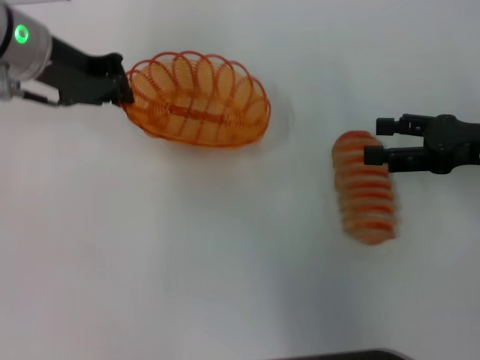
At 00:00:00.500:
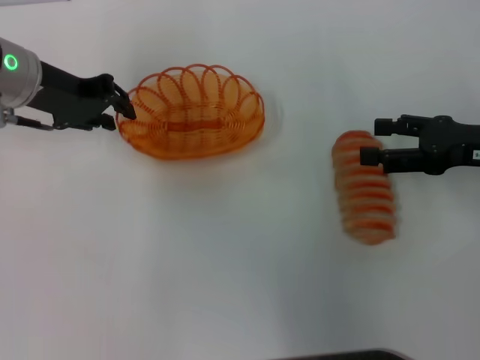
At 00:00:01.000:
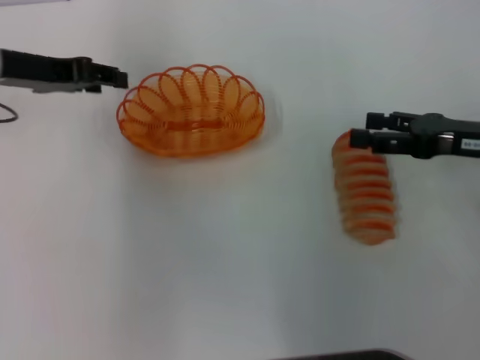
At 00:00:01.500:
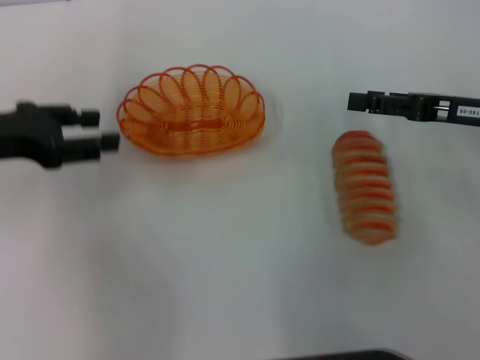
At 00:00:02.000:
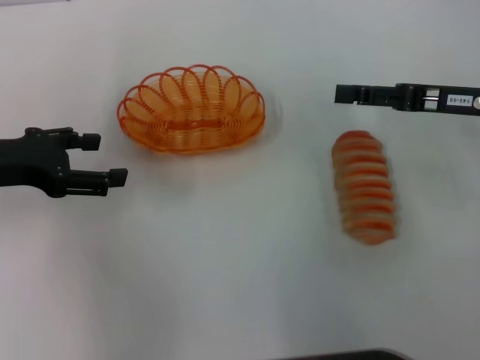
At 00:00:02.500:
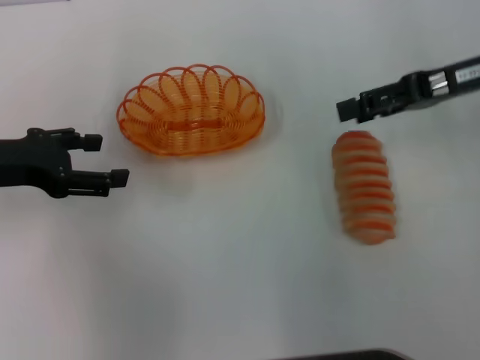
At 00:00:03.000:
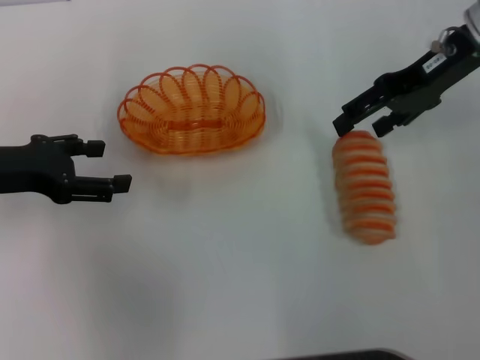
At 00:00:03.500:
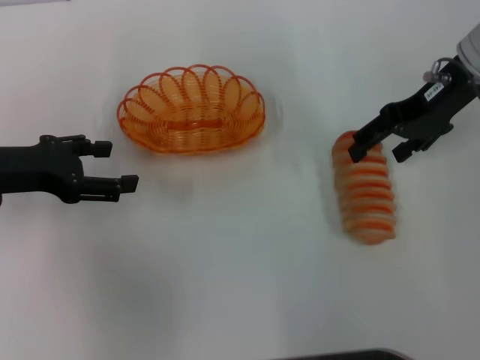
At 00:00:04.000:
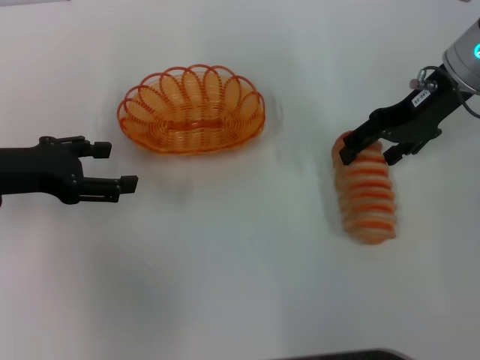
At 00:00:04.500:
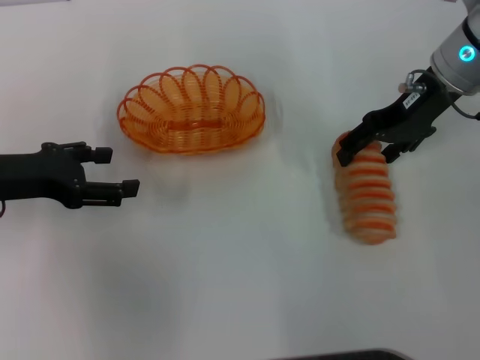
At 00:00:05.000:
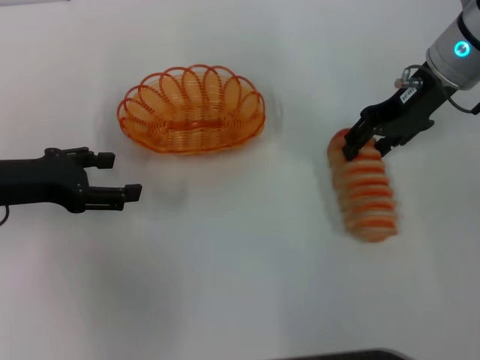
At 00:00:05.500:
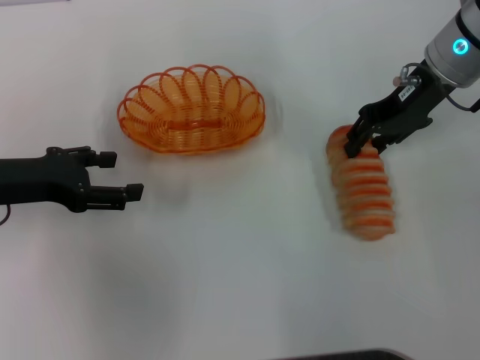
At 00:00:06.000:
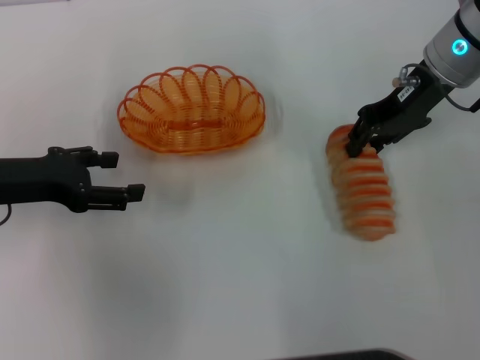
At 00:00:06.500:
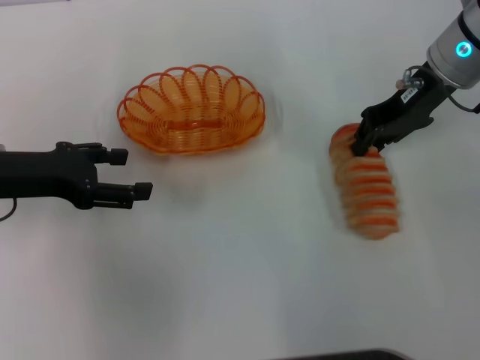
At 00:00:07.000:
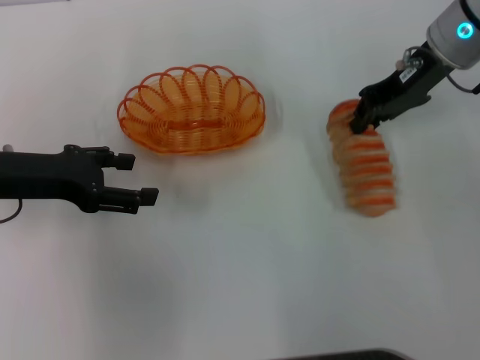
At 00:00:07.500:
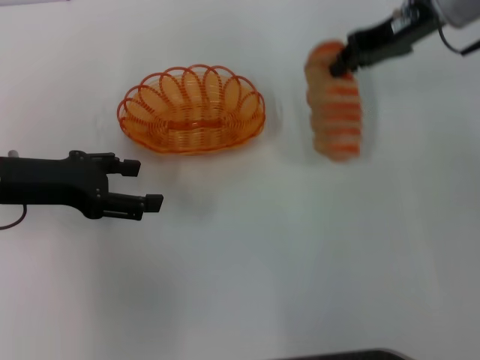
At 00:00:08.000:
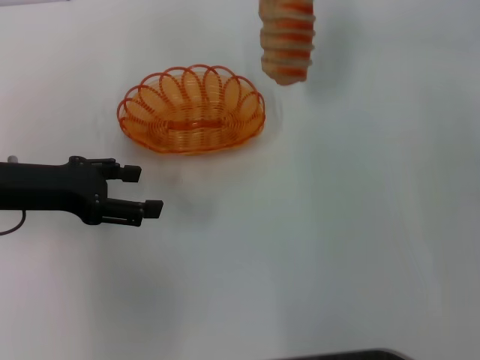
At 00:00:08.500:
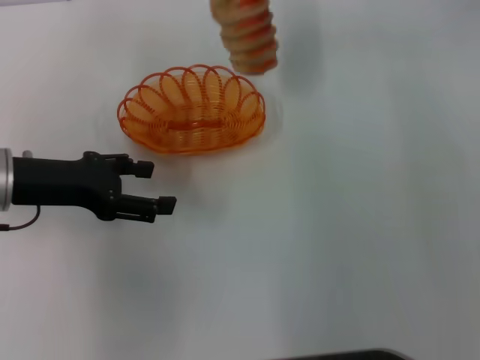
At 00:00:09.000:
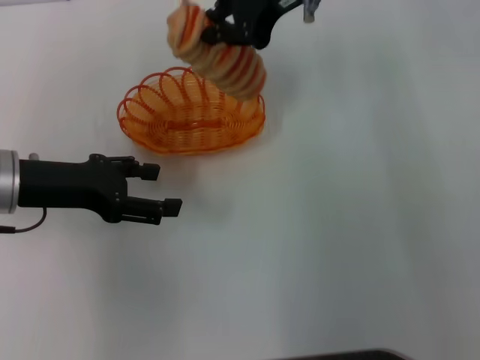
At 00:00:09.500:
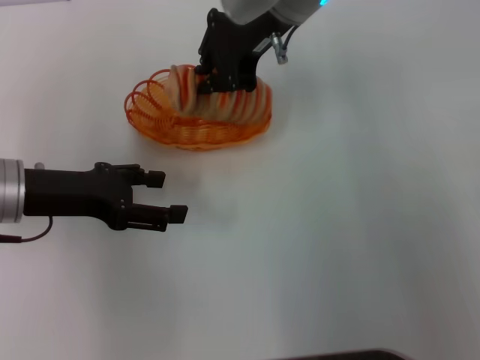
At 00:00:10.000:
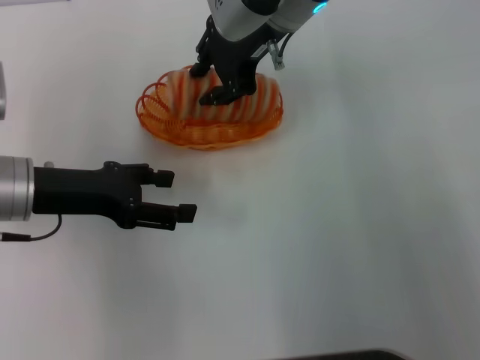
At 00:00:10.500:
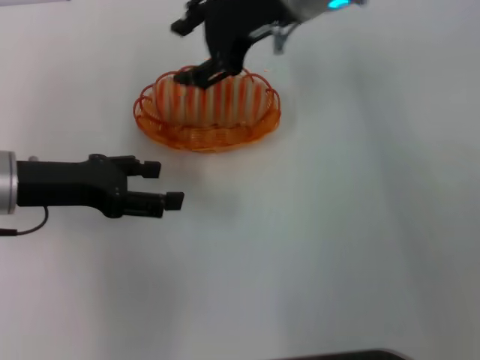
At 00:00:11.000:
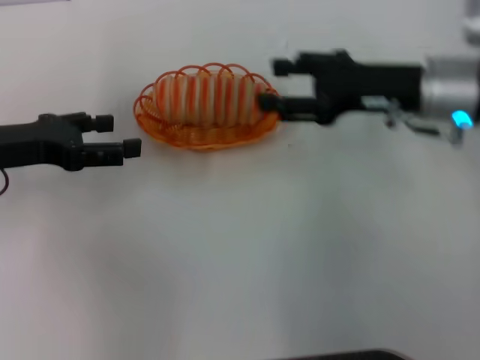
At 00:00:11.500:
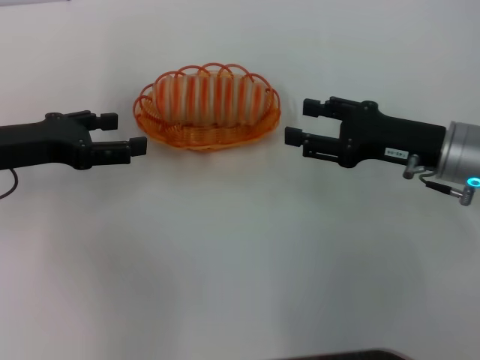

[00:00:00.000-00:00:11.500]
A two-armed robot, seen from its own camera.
Step, 00:00:01.000 to 00:00:06.500: Pick up the long bread with the right gripper.
Step, 00:00:07.000 to 00:00:10.000: Place the long bread into the basket with the right gripper.
00:00:00.000 to 00:00:02.000: The left gripper goes roughly 15 cm backward and to the left, and opens its fingers.
00:00:02.000 to 00:00:04.000: The right gripper moves forward and to the left, approximately 10 cm.
00:00:04.000 to 00:00:06.000: The right gripper closes its fingers.
00:00:06.000 to 00:00:07.500: There are only small adjustments of the grippers.
00:00:07.500 to 00:00:09.500: The right gripper shifts about 15 cm to the left.
00:00:09.500 to 00:00:11.500: The right gripper heads to the right, downward and backward, covering roughly 25 cm, and opens its fingers.
